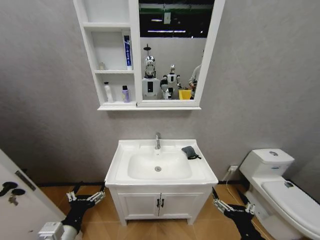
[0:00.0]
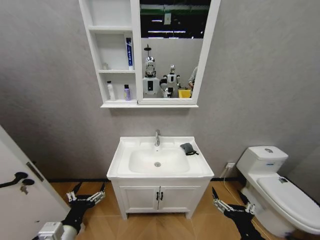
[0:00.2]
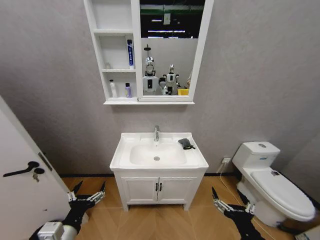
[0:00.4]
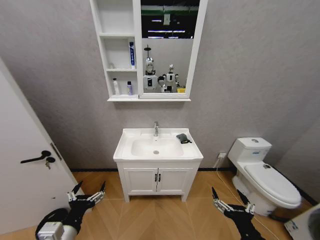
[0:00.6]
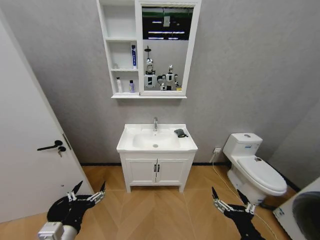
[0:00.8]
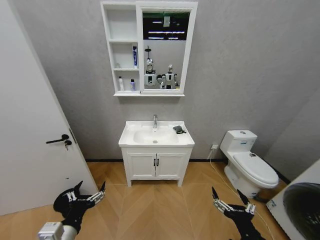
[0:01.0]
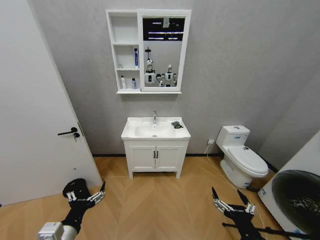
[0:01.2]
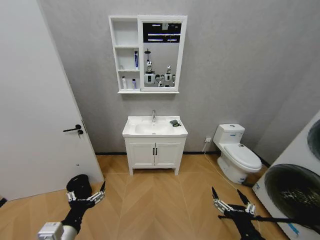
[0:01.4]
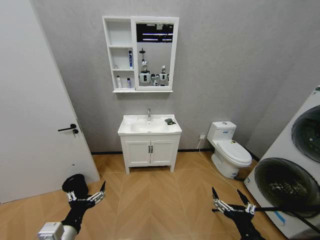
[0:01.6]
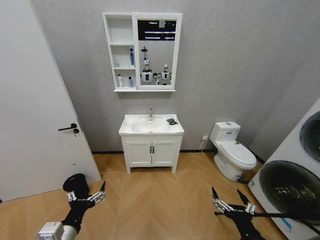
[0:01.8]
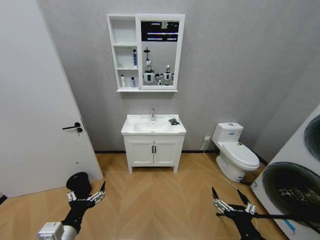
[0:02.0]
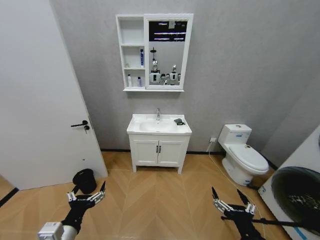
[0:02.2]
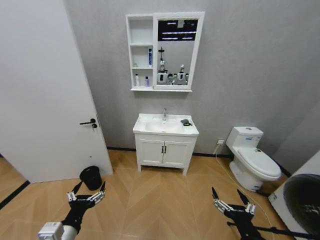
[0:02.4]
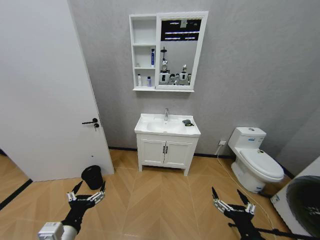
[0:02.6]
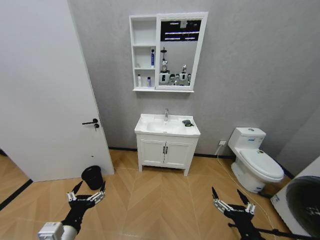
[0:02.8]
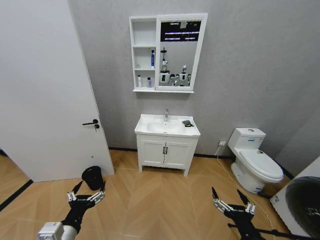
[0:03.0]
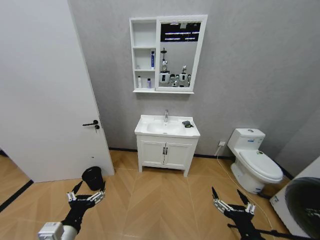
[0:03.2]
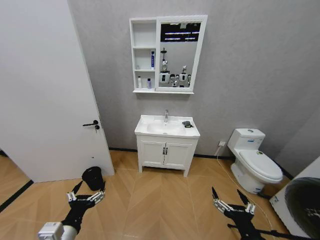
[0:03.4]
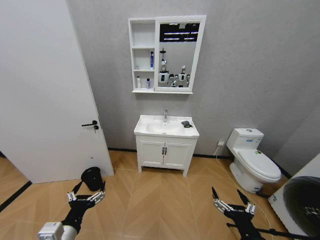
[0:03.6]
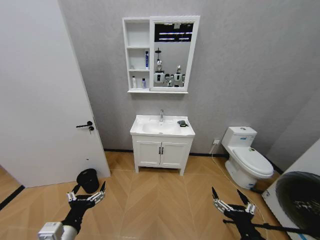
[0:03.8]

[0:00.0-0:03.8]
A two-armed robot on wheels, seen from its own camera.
Task of the whole recording: Move facial cleanser and shampoo from washbasin to cabinet, then wipe washbasin with towel.
0:02.6 to 0:03.8: Neither gripper changes place.
